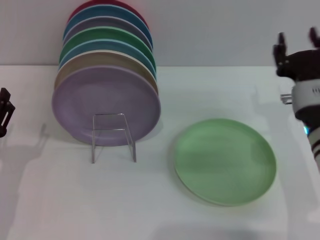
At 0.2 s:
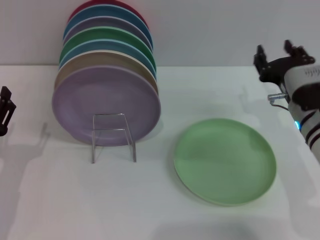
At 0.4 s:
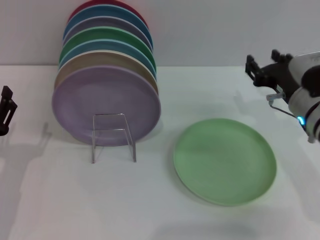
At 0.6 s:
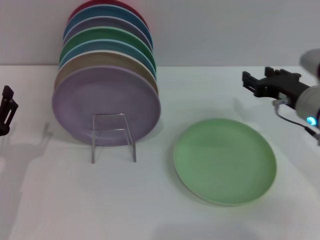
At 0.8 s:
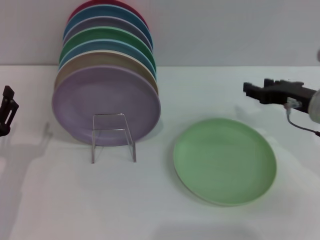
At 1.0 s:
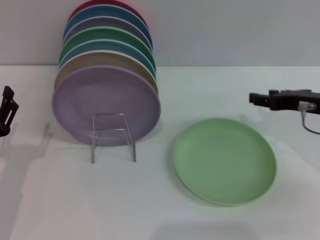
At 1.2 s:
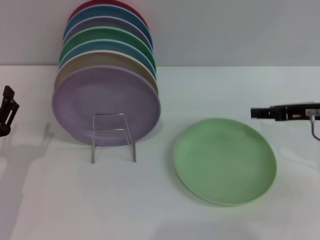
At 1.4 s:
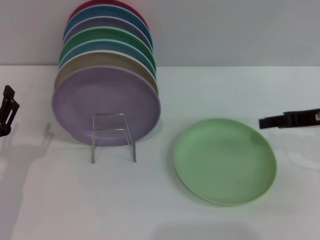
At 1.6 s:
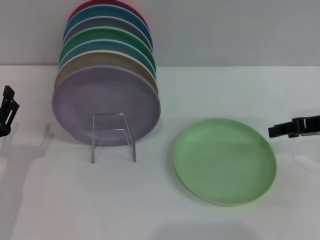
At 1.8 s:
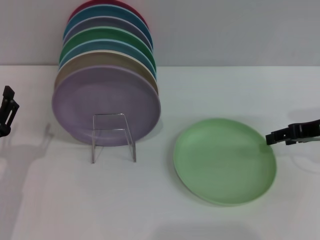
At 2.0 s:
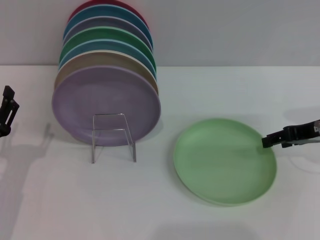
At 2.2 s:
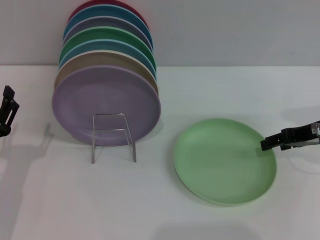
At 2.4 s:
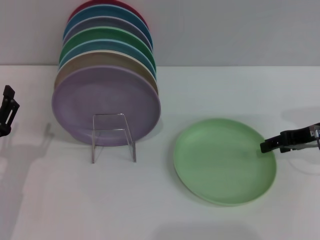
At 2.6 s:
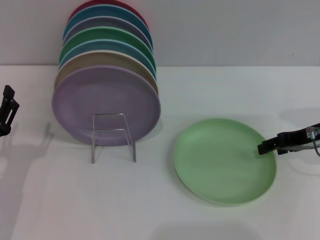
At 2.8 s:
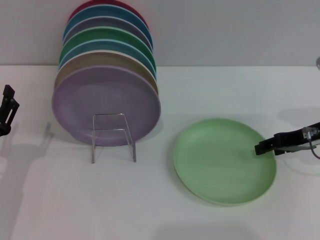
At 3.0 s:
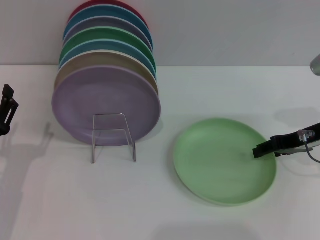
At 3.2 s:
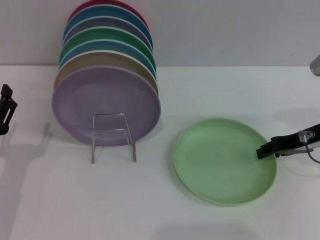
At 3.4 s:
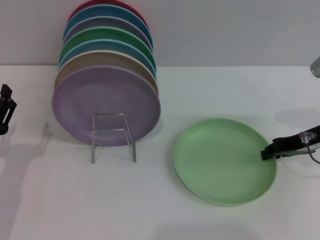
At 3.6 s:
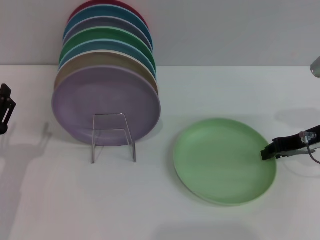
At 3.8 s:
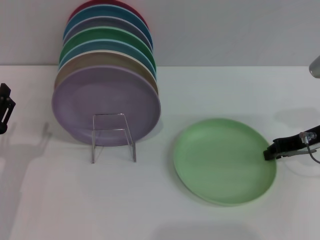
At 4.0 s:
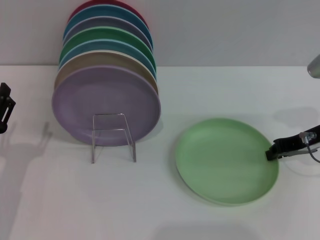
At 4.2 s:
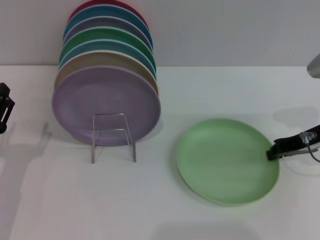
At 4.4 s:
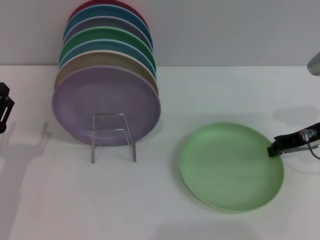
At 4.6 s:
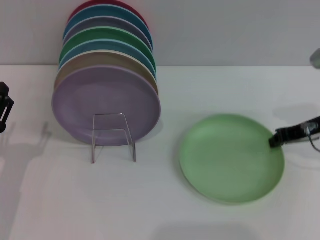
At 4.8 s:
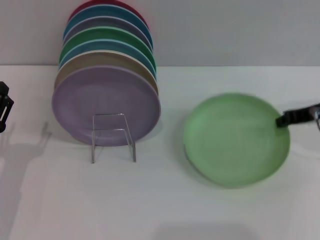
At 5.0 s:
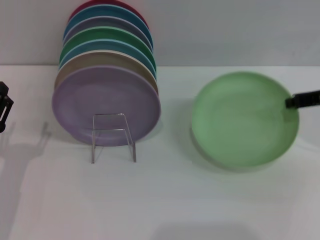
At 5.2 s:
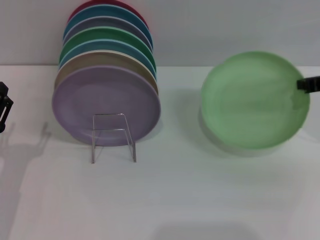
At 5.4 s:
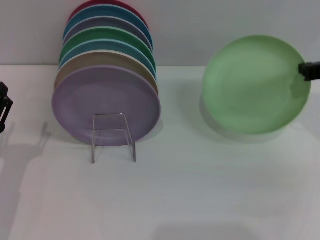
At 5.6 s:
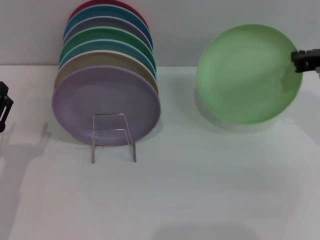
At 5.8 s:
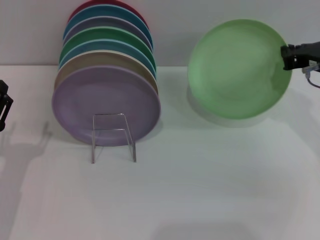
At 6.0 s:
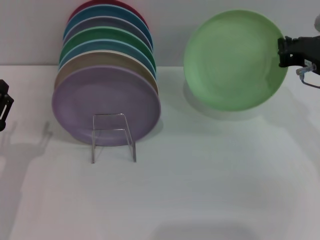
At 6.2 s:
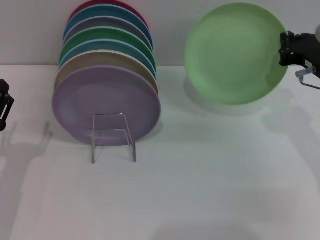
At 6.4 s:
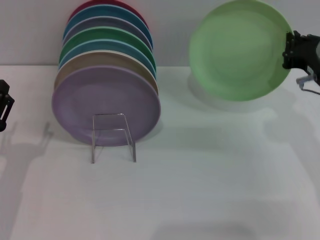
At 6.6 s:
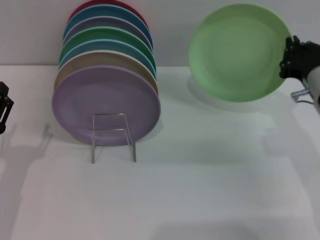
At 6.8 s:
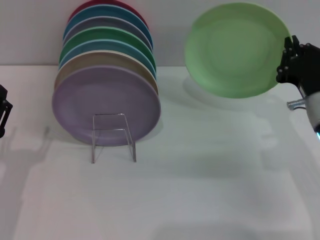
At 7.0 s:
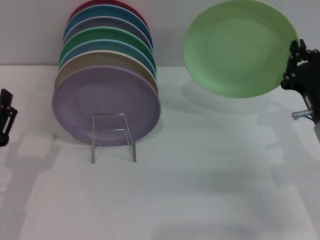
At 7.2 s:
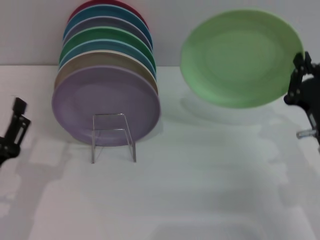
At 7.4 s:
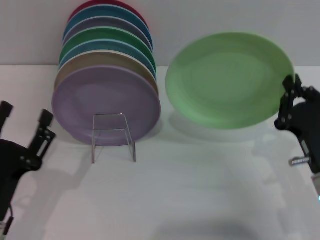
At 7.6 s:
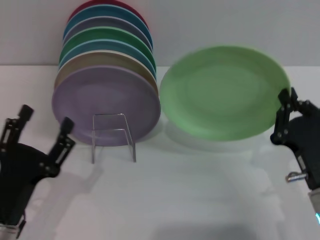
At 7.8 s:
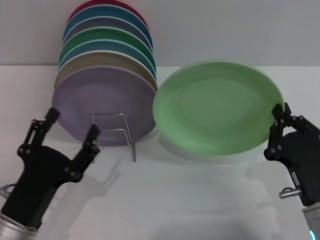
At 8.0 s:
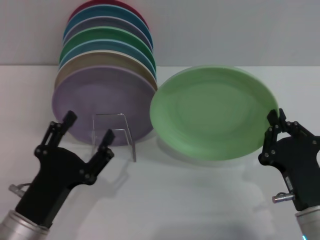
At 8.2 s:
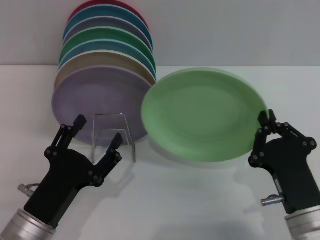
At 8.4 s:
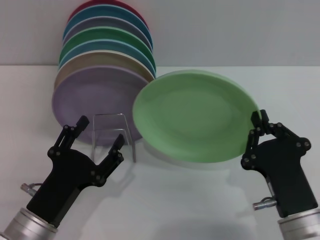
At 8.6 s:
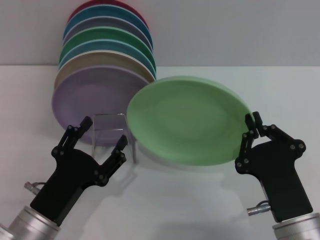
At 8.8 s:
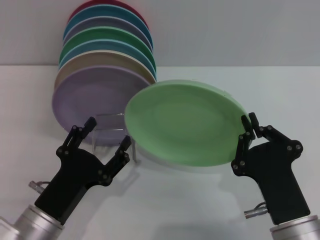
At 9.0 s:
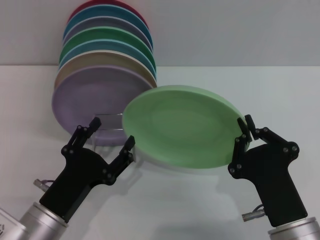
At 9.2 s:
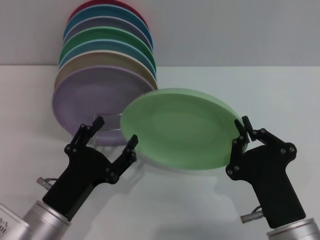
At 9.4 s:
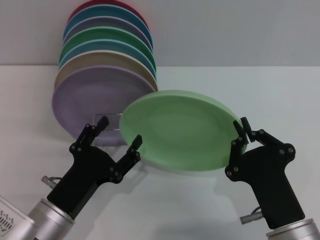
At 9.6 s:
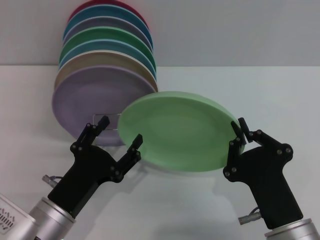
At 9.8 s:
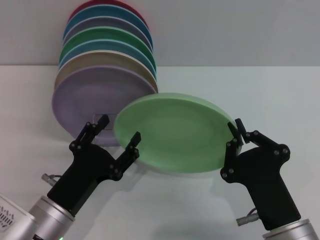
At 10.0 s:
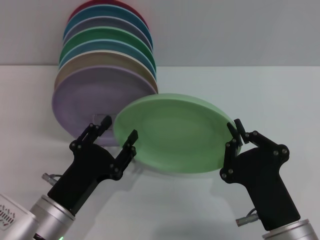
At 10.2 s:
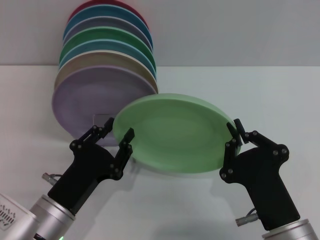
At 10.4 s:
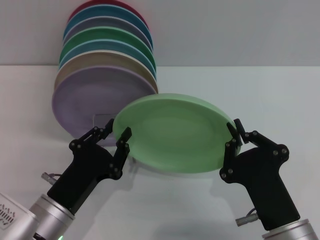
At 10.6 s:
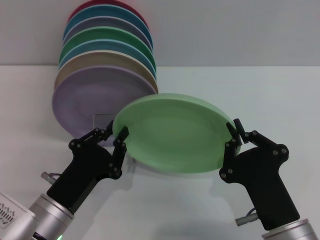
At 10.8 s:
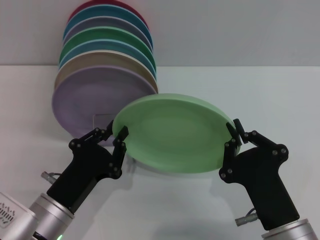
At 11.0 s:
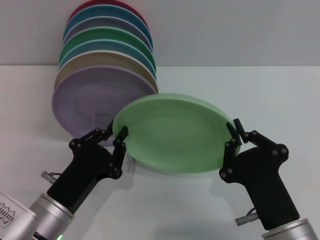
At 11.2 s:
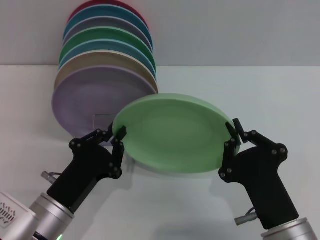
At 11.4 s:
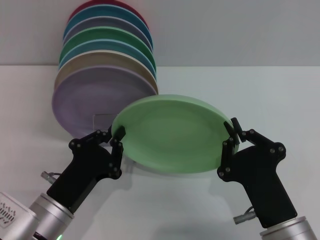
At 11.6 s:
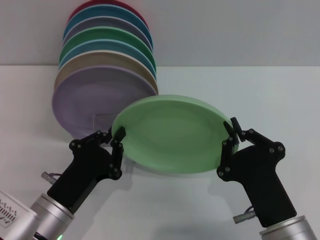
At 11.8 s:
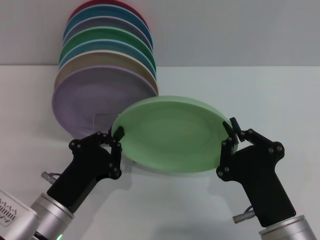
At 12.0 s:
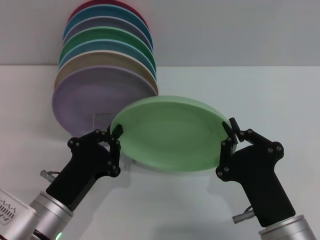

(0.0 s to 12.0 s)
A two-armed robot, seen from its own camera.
Task of the whole recording: Grip the plate with one hand, pass it to the other, then set it on the shelf.
Step, 0.0 s - 7.2 s: Pick up the plate with the right gripper.
0.0 s - 1.6 s: The right gripper shifts approximately 10 cm to the right and upward.
1.6 s - 3.0 s: The grippers make only small movements.
3.0 s - 4.4 s: The right gripper closes up.
4.4 s - 6.0 s: The right gripper moves about 5 cm.
6.0 s - 7.6 s: The right gripper moves backward and downward, some 20 cm. The left gripper goes approximately 10 cm backward and to the right.
7.6 s - 9.0 s: The left gripper shifts by approximately 5 cm. Meanwhile the right gripper heads to the left and backward, covering some 10 cm.
9.0 s - 10.4 s: The left gripper closes.
10.4 s - 12.0 s: The left gripper closes its fingers.

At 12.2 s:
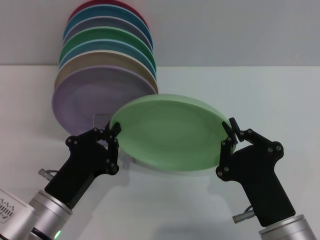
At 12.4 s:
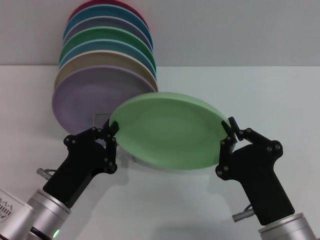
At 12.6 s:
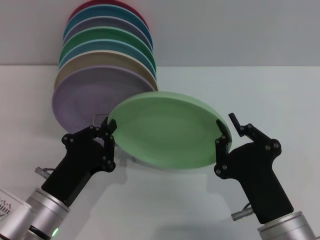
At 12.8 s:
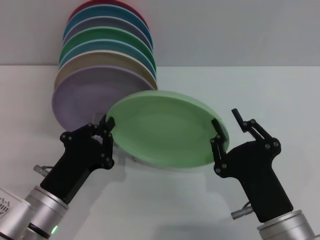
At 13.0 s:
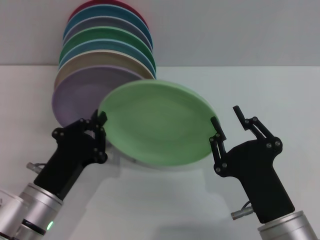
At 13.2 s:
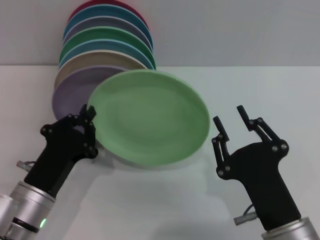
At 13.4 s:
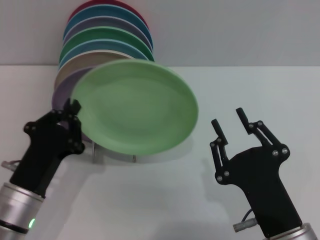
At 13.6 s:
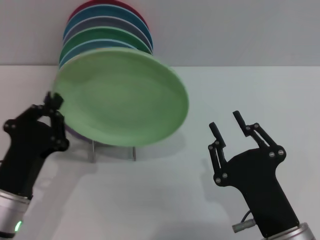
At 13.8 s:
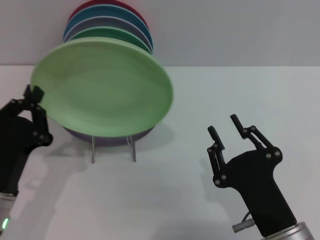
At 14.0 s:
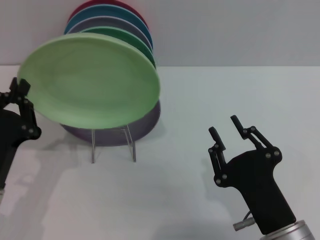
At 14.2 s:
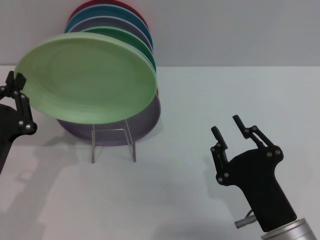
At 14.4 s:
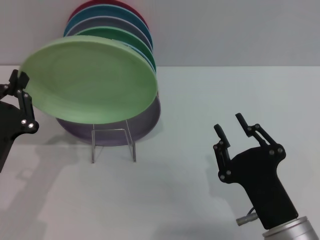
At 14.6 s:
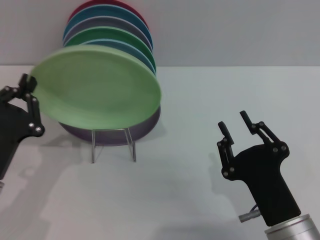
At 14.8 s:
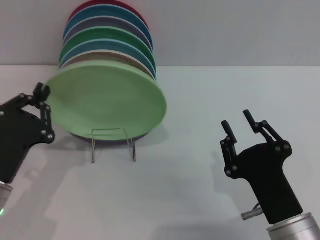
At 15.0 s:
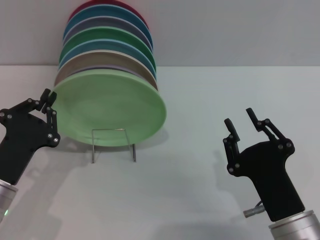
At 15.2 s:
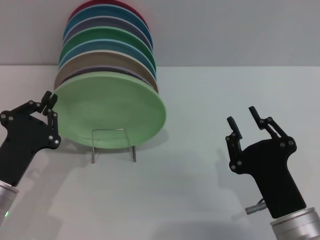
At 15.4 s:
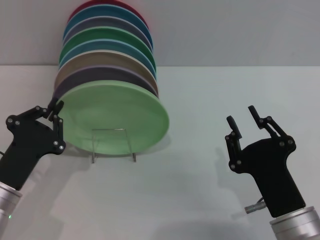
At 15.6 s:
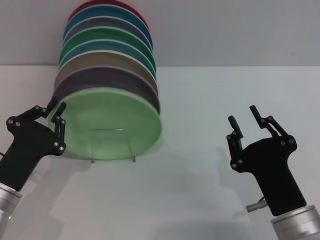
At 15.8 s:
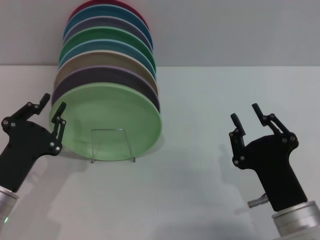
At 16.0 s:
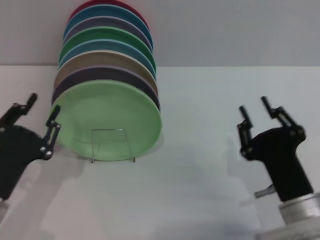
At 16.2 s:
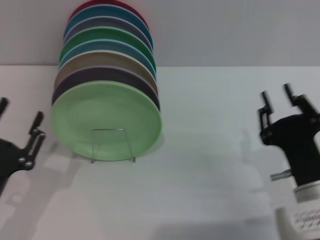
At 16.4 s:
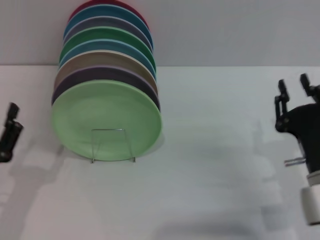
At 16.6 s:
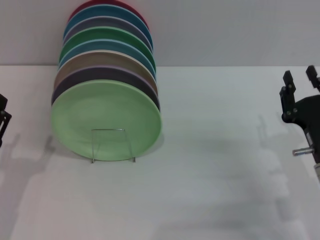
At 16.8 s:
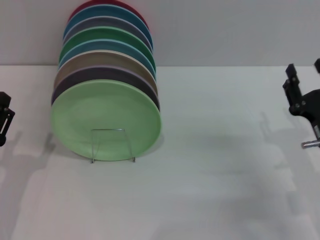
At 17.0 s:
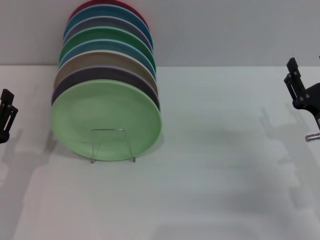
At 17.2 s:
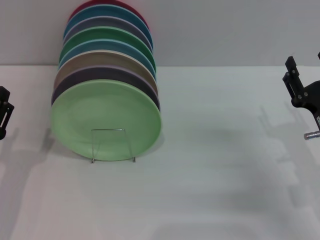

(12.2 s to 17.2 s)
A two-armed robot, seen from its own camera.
Task of the whole recording: Grip the plate with one hand, pass it to the other, then set it on the shelf.
Step, 13.6 s - 16.2 s: Place the plate on the shelf with the left gripper.
12.2 s - 13.8 s: The left gripper moves approximately 5 cm. The right gripper opens its fingers.
15.6 s - 17.2 s: The left gripper opens its fingers, while the right gripper goes roughly 15 cm to the right and forward.
